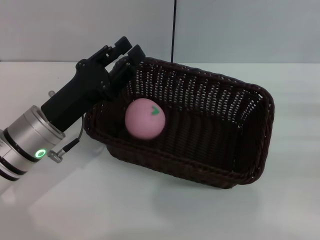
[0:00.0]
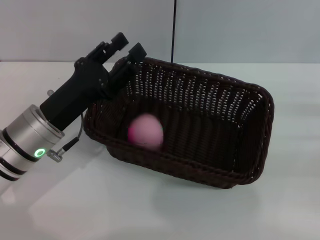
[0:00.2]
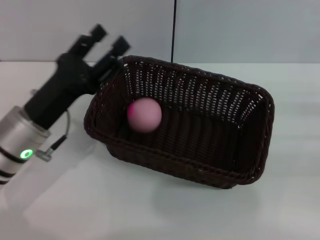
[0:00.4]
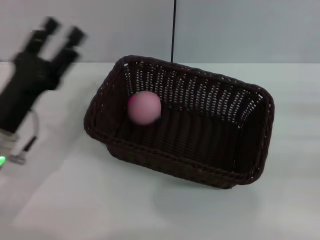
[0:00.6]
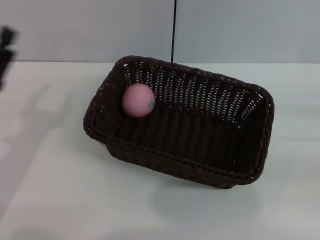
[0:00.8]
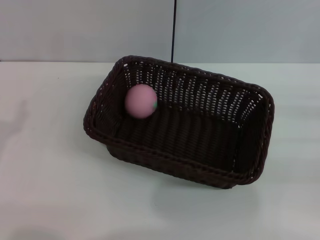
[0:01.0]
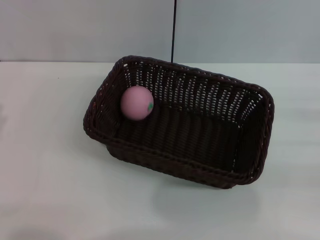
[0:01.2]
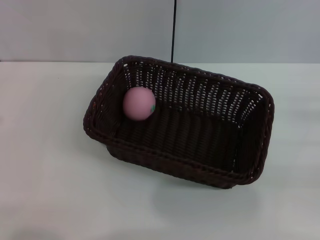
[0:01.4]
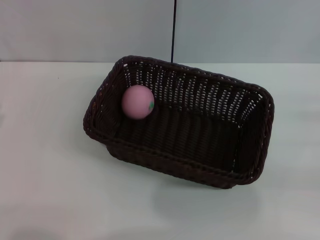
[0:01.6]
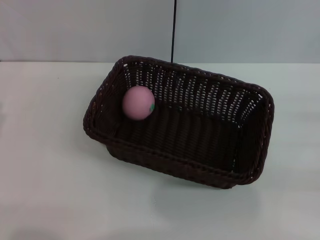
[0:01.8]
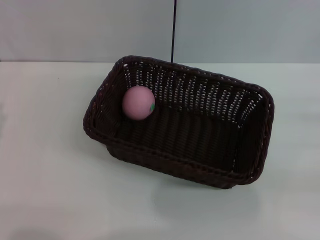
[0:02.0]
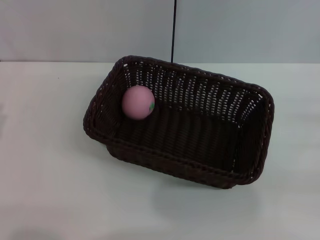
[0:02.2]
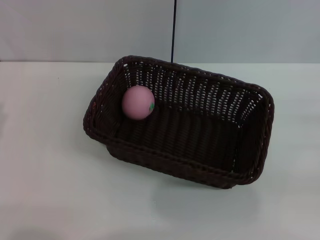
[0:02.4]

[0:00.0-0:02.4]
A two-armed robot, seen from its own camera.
0:00.0 to 0:01.2: The left gripper is displaced to the left and backward by approximately 15 cm, and opens its fingers.

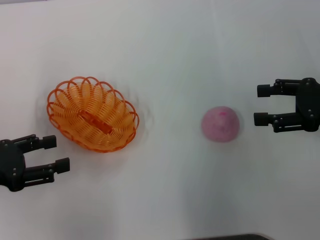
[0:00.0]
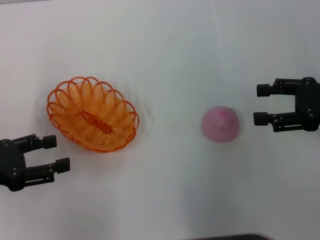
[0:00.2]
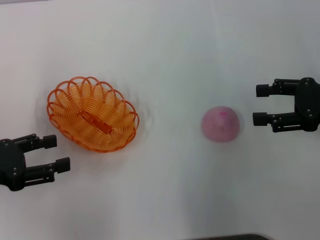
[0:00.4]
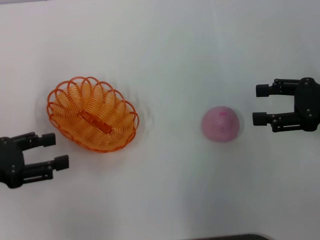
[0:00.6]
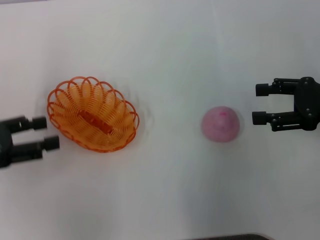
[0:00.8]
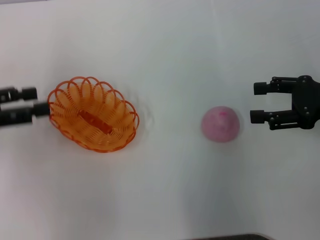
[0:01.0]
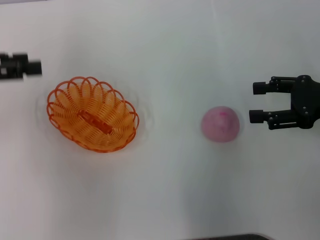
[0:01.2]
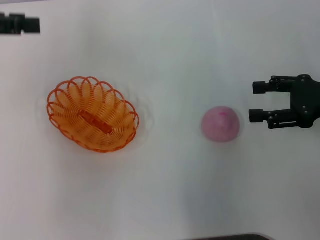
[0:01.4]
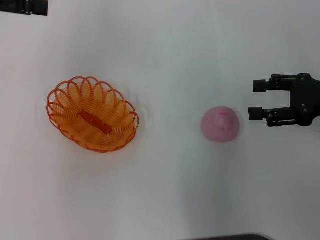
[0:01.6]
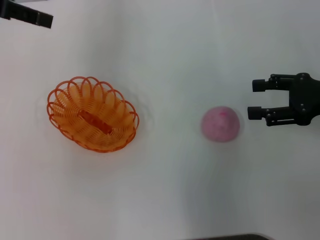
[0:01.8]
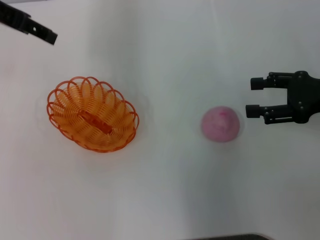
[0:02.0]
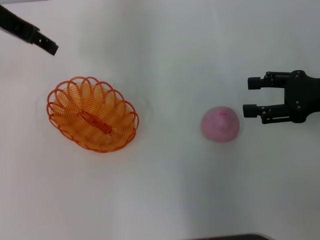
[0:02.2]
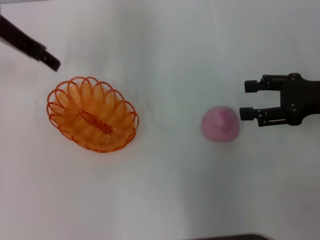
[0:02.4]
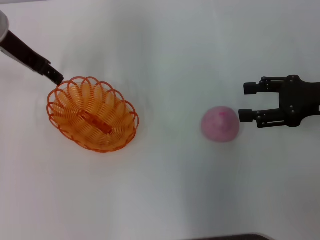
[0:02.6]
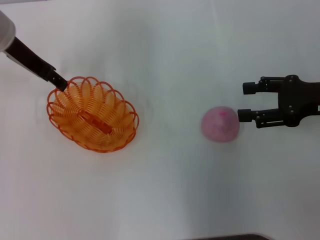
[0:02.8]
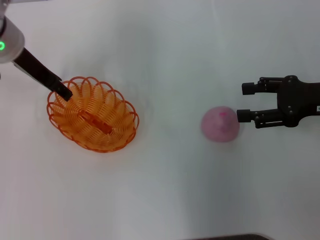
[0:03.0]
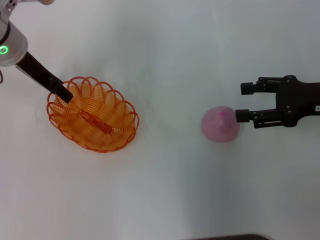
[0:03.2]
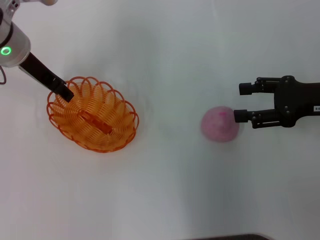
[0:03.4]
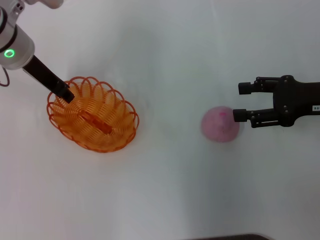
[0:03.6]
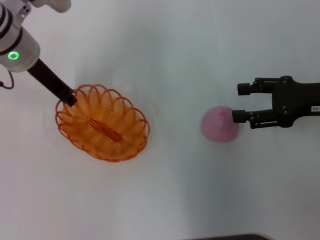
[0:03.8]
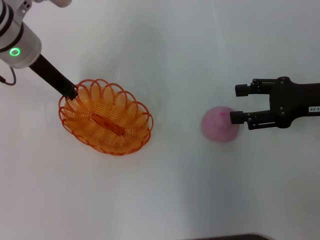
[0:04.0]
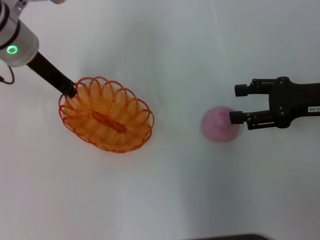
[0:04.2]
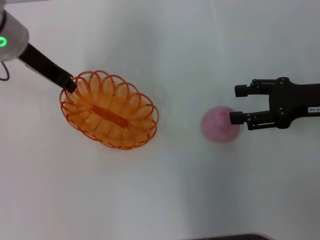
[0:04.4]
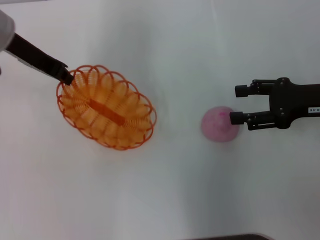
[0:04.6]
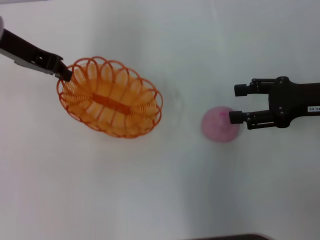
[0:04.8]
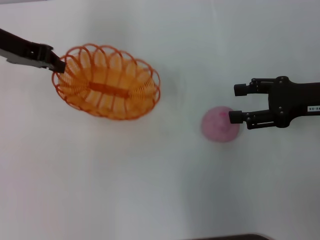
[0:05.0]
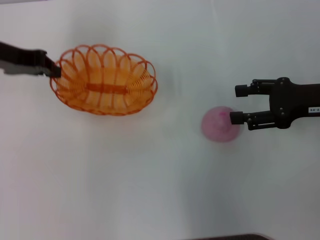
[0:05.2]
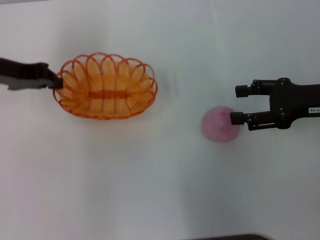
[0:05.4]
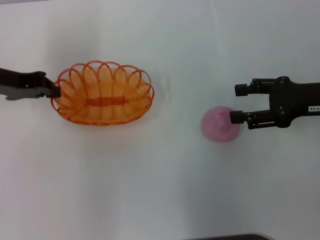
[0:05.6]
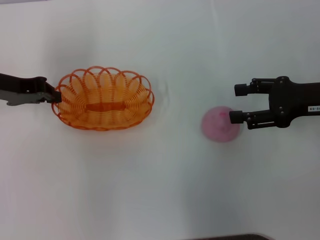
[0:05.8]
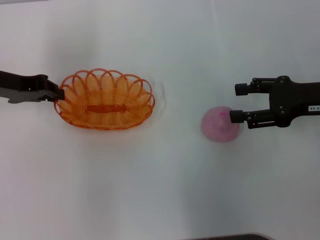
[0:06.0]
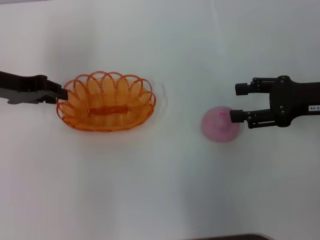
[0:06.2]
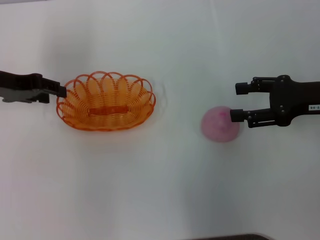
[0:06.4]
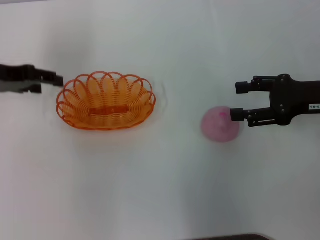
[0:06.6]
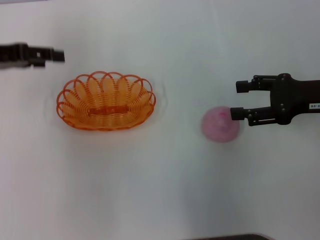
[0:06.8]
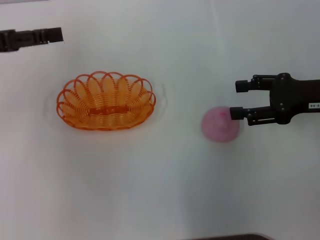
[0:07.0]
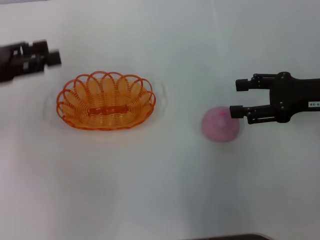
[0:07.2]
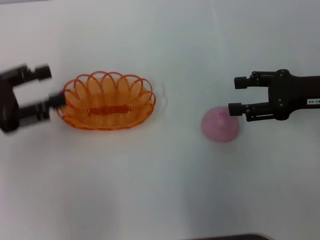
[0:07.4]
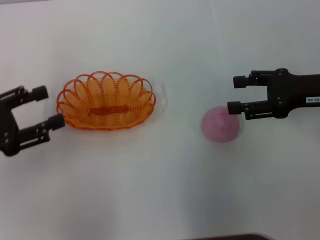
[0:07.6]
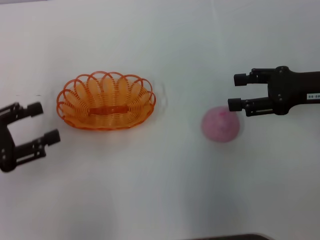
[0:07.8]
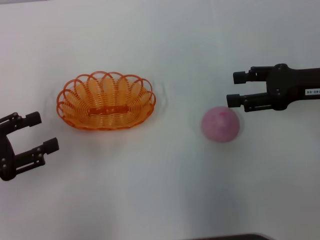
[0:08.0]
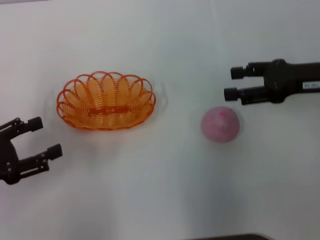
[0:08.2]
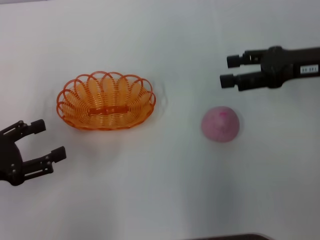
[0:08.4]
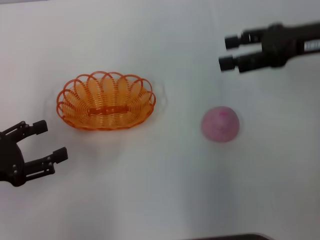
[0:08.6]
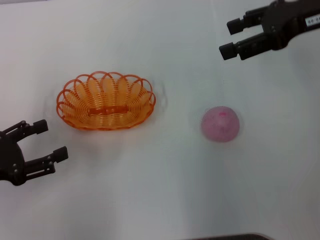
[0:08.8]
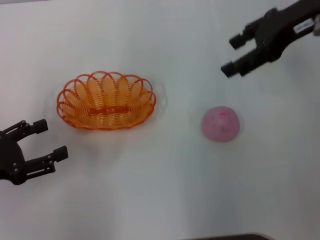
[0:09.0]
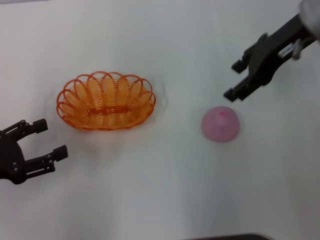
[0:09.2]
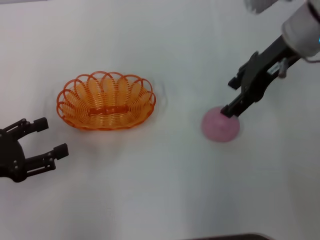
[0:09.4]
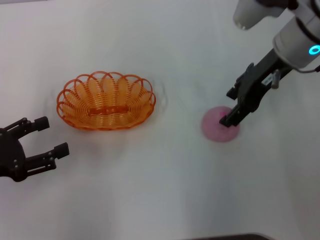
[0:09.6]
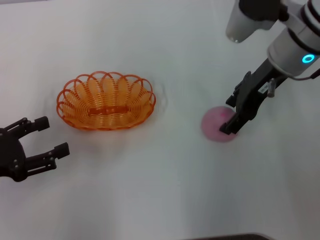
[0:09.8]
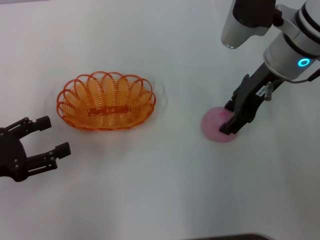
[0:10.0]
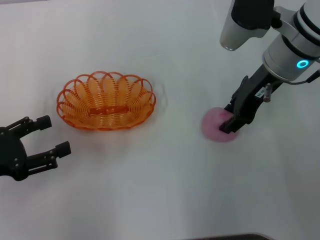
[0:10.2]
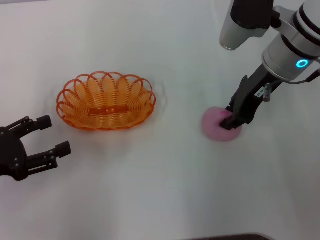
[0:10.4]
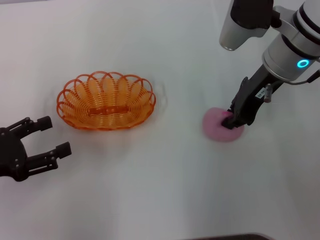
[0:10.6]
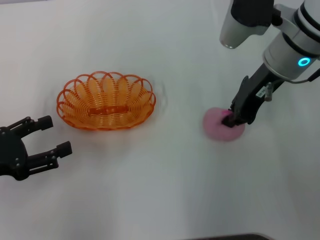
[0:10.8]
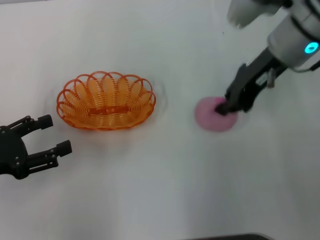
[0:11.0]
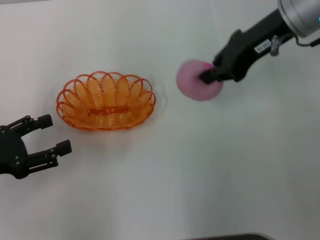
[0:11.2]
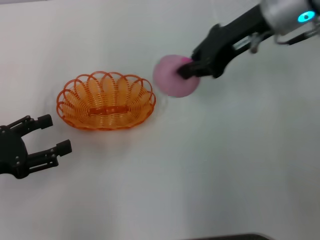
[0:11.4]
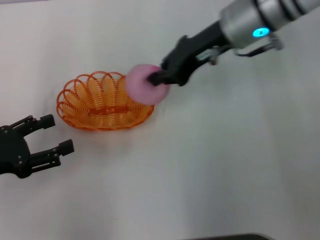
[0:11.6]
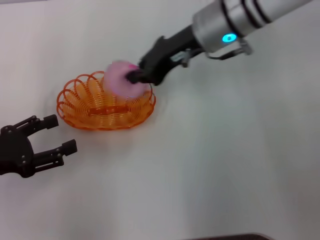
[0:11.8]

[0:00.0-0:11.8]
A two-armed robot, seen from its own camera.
Step, 0:00.0 to 0:04.8: Pick up the basket with the left gripper.
Step, 0:05.0 to 0:08.4: Place the basket in the center of view with the left gripper.
Step, 0:08.6 to 0:11.0: Pick up the peach with the right gripper.
0:00.0 to 0:01.4: The left gripper is displaced upward and forward by some 20 cm.
0:01.4 to 0:03.0: The left gripper goes some 15 cm to the right, downward and forward.
0:03.0 to 0:04.4: The left gripper closes up.
0:04.4 to 0:06.0: The left gripper travels to the left by approximately 5 cm.
0:06.0 to 0:07.4: The left gripper goes about 10 cm backward, and opens up.
0:07.4 to 0:08.8: The right gripper shifts some 15 cm upward and forward. Meanwhile the left gripper is displaced downward and backward by some 10 cm.
0:08.8 to 0:10.4: The right gripper moves to the left and downward, about 10 cm, and closes its fingers.
0:10.4 to 0:11.8: The right gripper is displaced to the left by roughly 5 cm, and closes up.

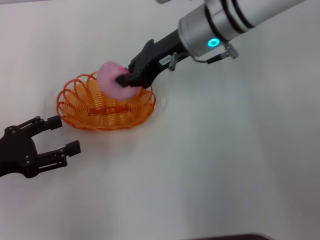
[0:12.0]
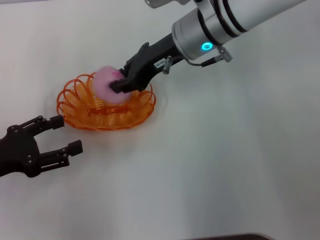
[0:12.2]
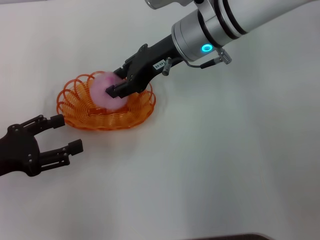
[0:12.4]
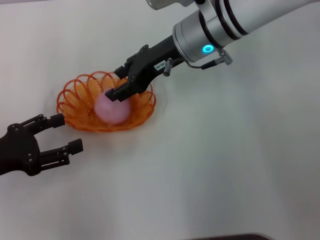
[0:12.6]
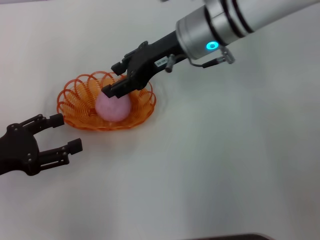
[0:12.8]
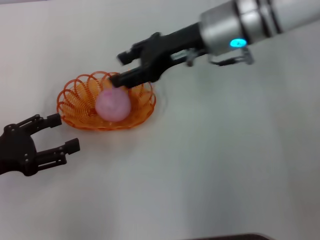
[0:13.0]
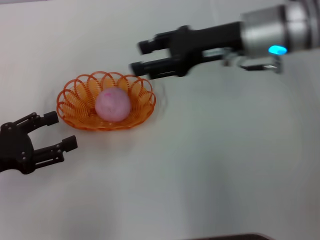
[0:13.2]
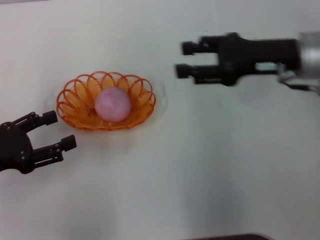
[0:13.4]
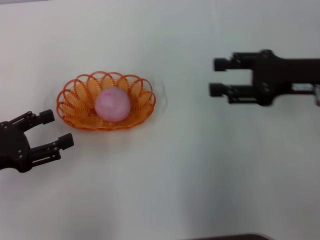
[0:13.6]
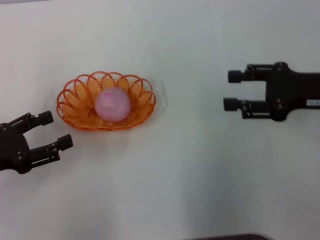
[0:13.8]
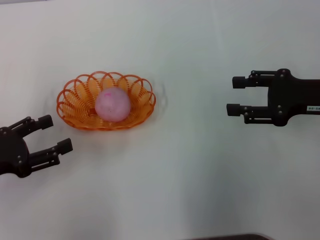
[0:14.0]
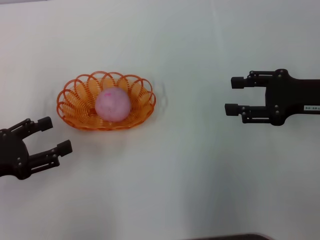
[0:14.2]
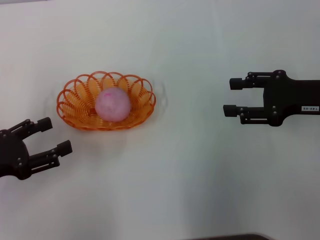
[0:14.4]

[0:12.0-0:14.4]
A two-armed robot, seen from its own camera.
Step, 0:12.0 to 0:13.4: Place the peach into the basket with the right gripper.
0:12.0 to 0:13.2: The right gripper shifts roughly 10 cm to the right, and opens its fingers.
0:13.2 to 0:14.4: The right gripper is displaced to the right and backward by approximately 15 cm.

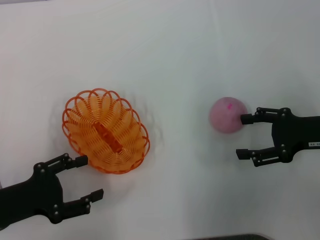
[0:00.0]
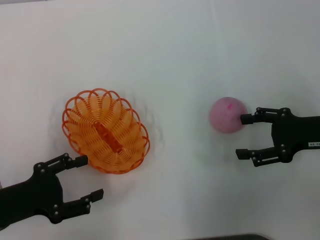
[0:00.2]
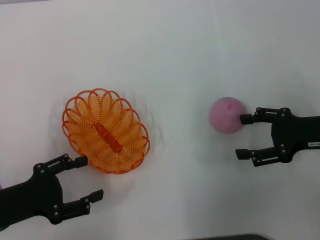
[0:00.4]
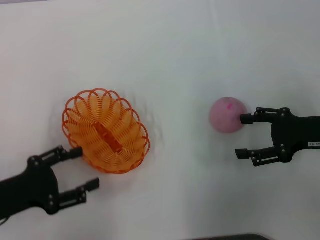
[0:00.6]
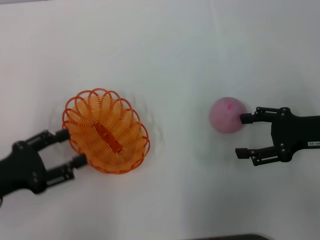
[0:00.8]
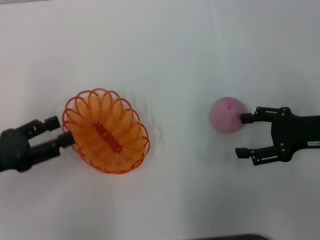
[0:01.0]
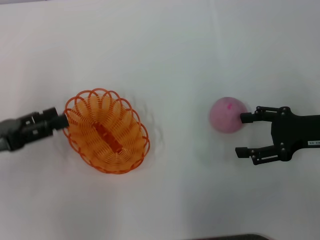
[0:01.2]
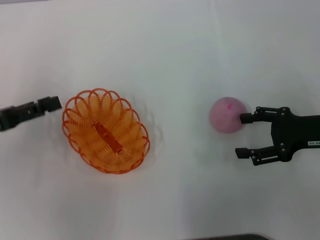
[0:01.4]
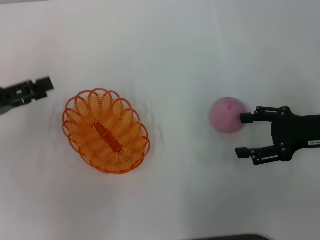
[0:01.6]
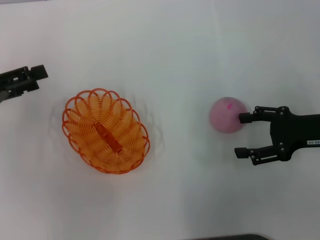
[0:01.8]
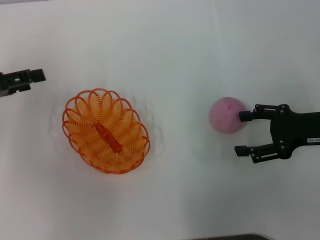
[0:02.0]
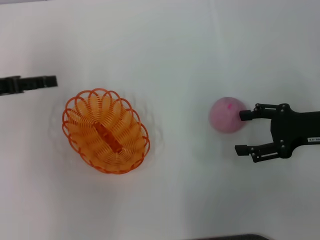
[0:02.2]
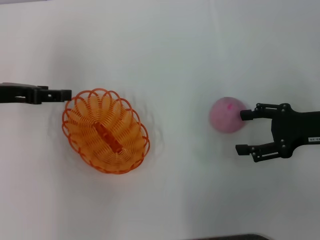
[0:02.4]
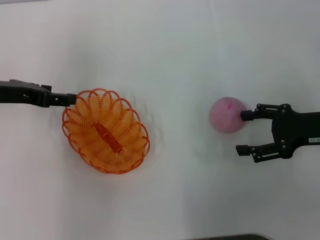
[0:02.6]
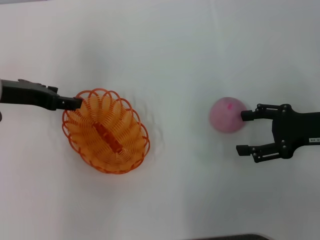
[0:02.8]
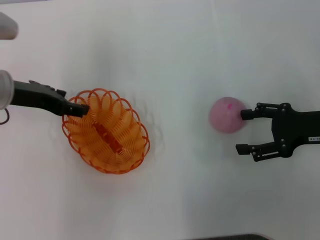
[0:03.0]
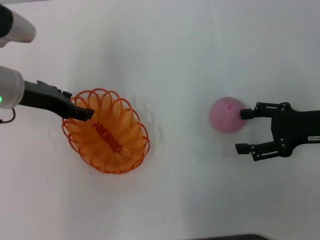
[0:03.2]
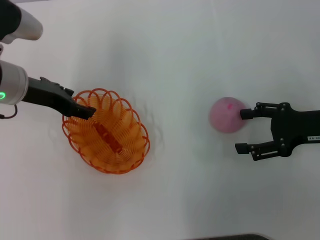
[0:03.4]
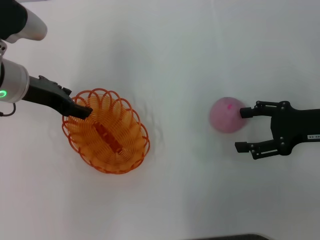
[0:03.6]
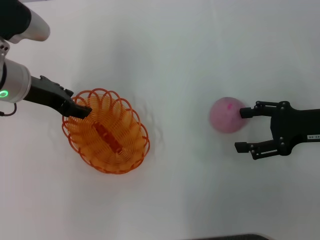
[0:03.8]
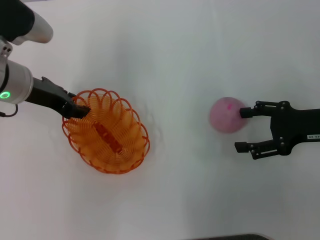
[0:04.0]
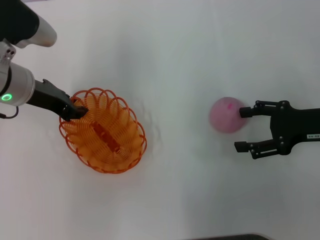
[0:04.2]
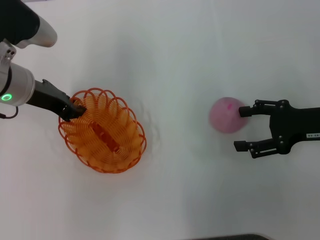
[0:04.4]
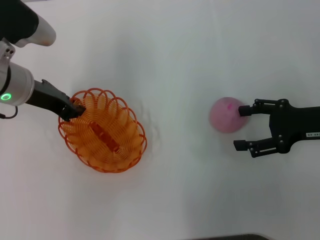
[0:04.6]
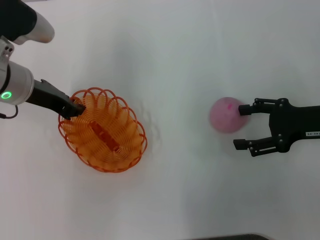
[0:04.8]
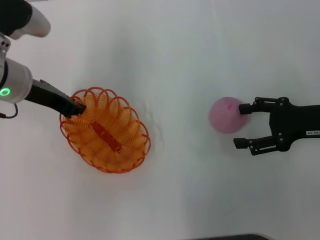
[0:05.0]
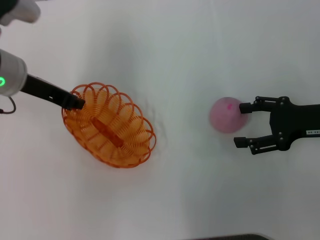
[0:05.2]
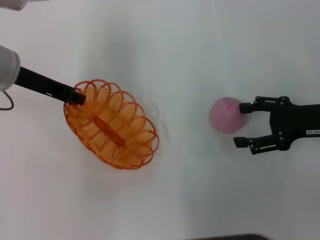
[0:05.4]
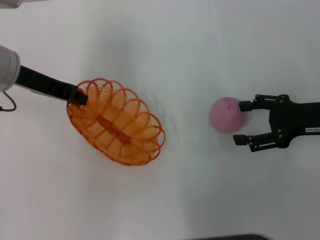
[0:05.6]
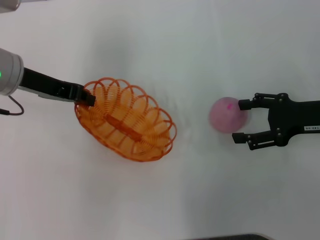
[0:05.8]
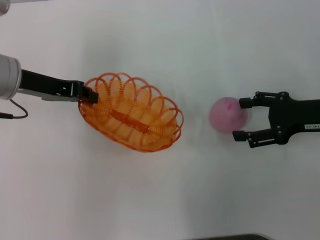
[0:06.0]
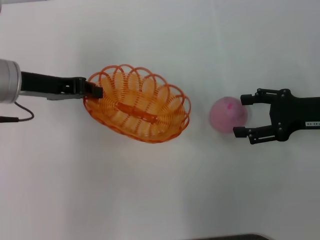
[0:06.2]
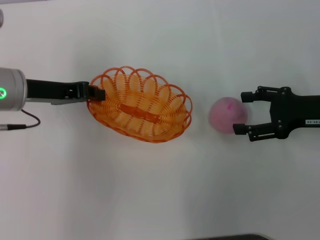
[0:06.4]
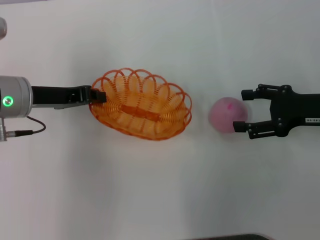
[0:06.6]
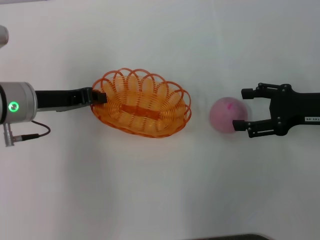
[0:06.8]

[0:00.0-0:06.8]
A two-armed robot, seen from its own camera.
Step, 0:00.0 to 0:05.4: Pick up the basket with the left gripper.
0:00.0 to 0:01.4: The left gripper shifts some 10 cm forward and upward.
0:01.4 to 0:02.8: The left gripper moves forward and to the right, some 10 cm.
0:02.8 to 0:04.0: The grippers move only a little.
0:04.0 to 0:05.4: The left gripper closes its fingers.
0:05.4 to 0:06.8: The left gripper heads downward, covering approximately 5 cm.
